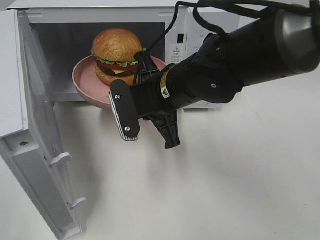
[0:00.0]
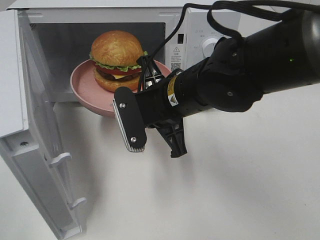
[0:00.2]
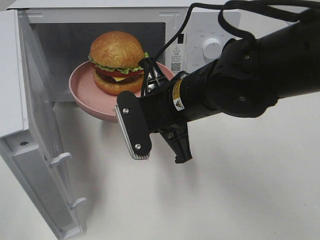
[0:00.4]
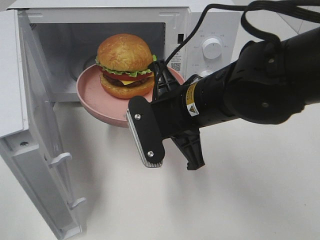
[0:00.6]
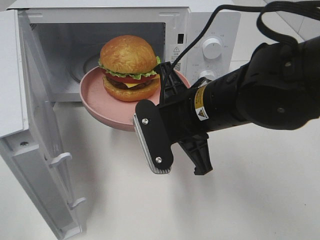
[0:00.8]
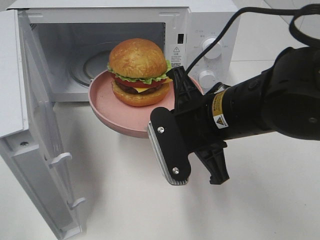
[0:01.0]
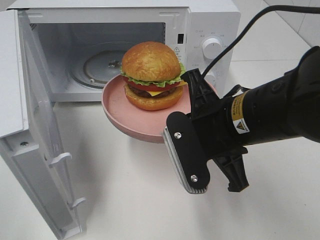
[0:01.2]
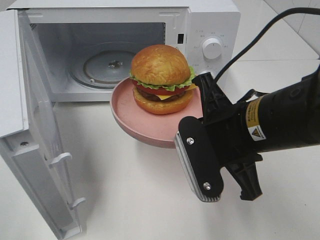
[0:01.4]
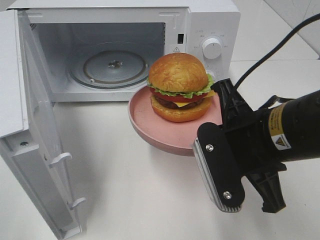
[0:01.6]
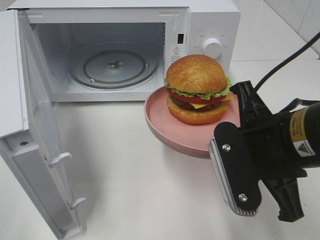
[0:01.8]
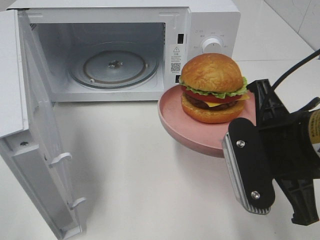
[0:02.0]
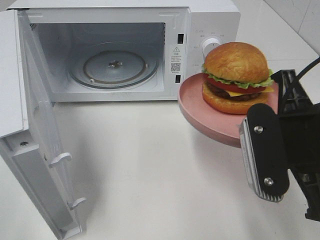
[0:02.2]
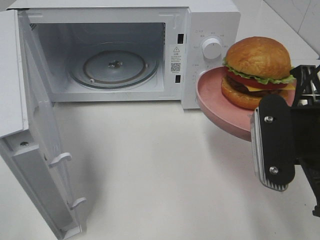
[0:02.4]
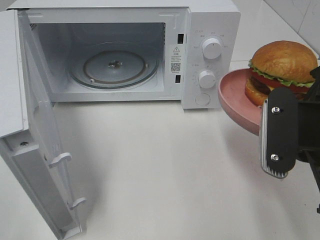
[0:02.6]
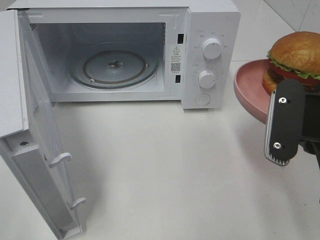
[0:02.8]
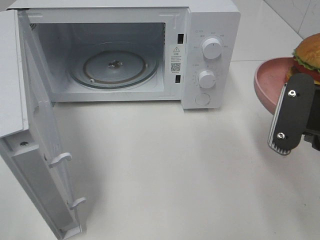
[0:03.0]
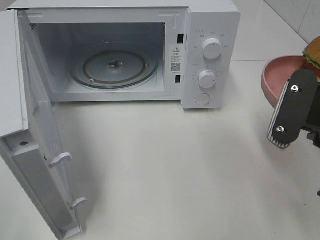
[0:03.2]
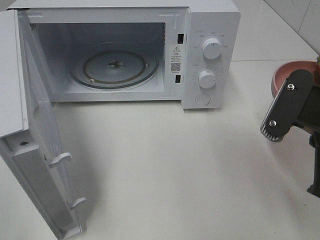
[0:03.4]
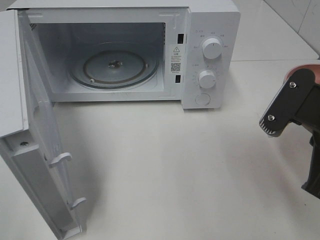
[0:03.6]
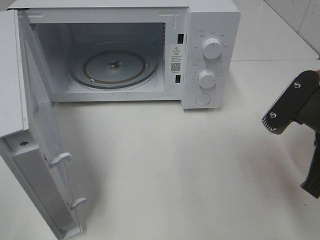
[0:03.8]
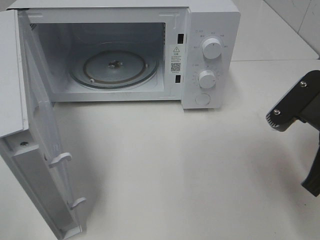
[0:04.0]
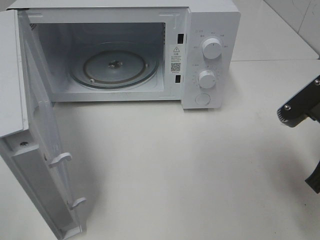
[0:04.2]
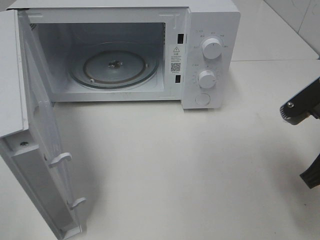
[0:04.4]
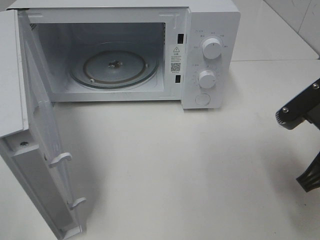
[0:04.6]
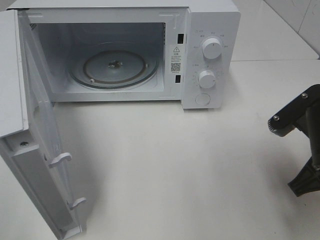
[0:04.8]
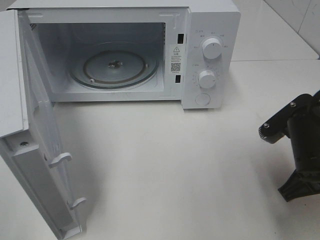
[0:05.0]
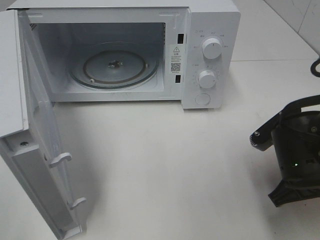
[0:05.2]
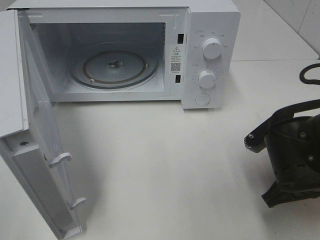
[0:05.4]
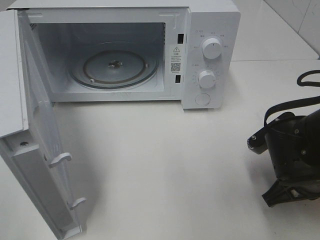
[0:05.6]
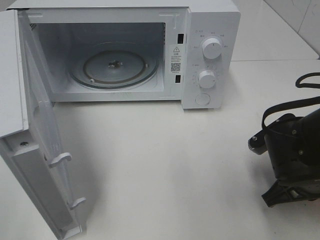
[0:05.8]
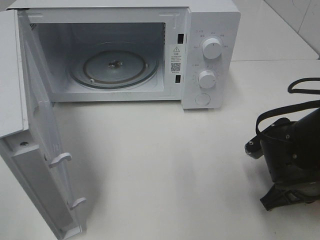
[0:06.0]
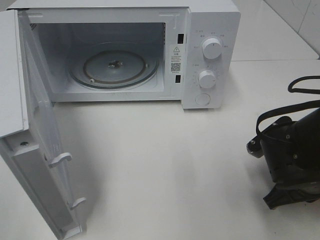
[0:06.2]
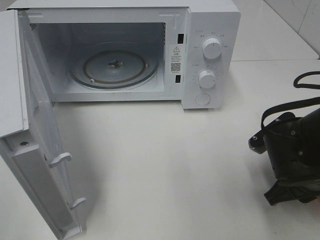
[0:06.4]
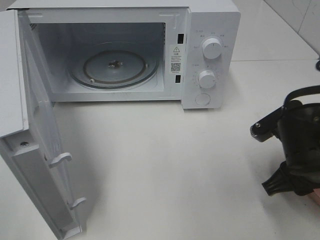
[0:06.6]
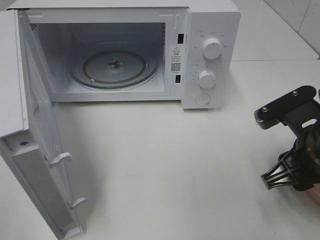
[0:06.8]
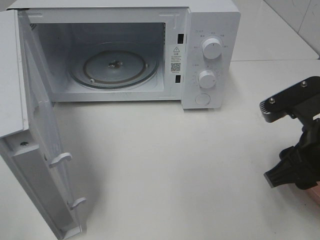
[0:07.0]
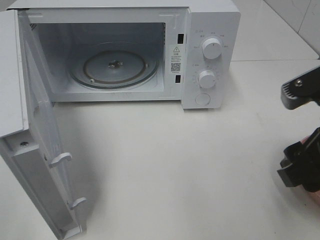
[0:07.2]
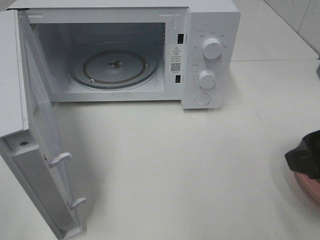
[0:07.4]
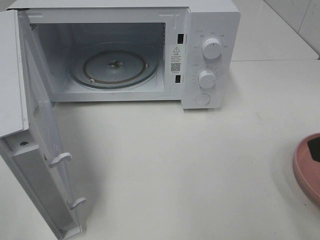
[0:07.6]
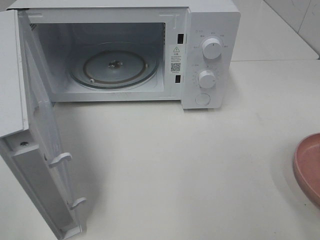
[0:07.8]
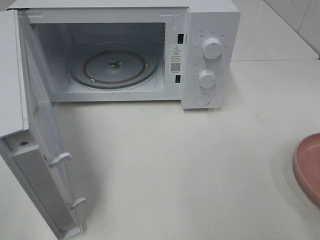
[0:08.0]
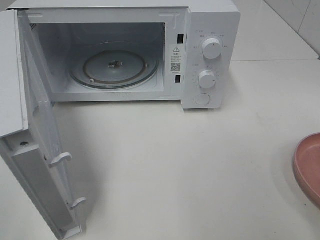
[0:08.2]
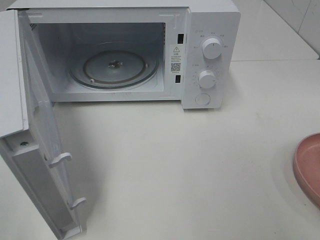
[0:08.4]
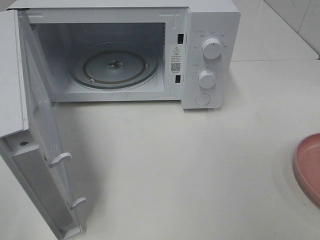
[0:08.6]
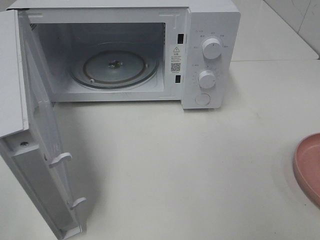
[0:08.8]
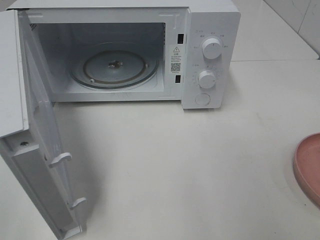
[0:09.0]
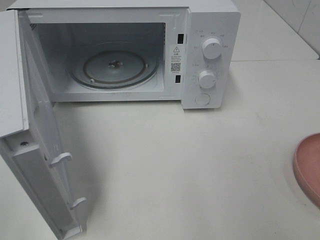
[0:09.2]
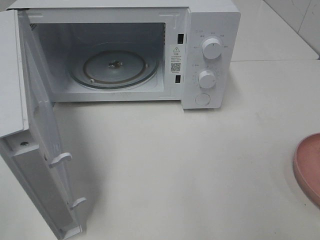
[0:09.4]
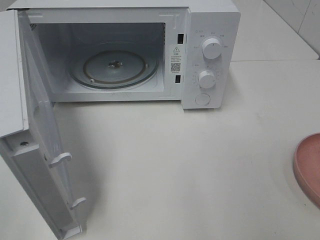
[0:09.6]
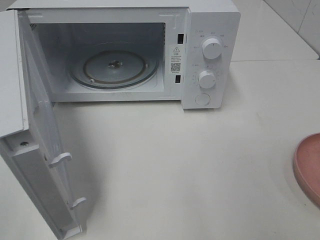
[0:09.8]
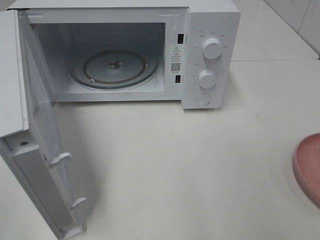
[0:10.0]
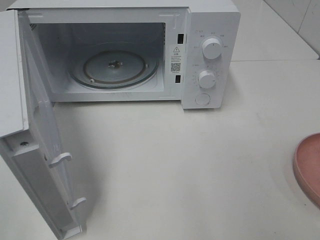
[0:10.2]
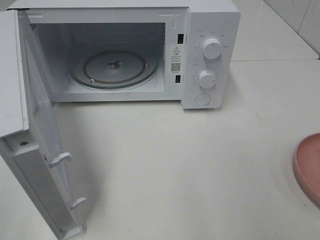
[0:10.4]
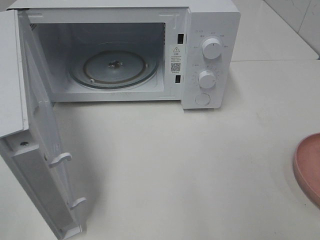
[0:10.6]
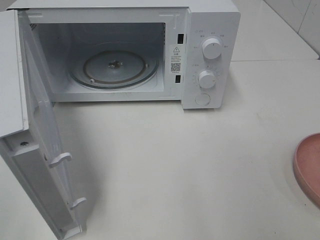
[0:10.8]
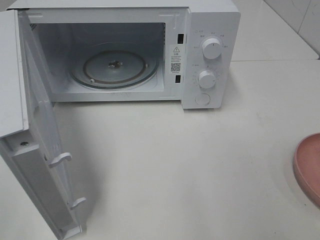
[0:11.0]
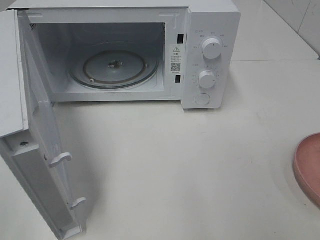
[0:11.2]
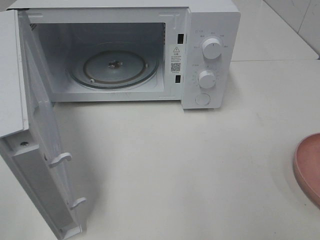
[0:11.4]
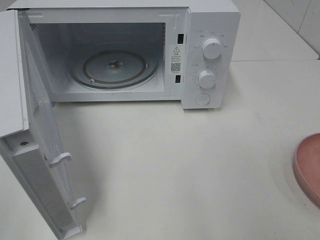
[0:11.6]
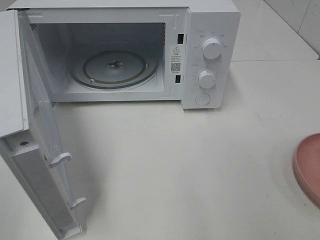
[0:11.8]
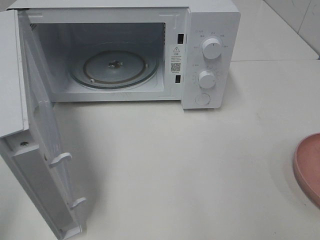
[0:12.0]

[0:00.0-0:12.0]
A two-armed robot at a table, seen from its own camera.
Task of the whole recording: Heat the burger.
Step, 0:00.0 to 0:06.6: Right hand: place the plate on the table.
0:00.0 to 0:01.6: The right gripper goes approximately 15 cm backward and to the right.
0:01.6 to 0:03.0: The right gripper heads to the right, covering roughly 10 cm.
0:04.4 to 0:06.0: The right gripper travels downward by roughly 10 cm.
0:06.0 to 0:07.6: The right gripper heads upward and backward, covering roughly 25 cm, and opens up.

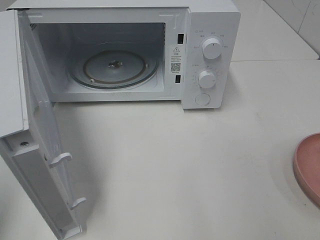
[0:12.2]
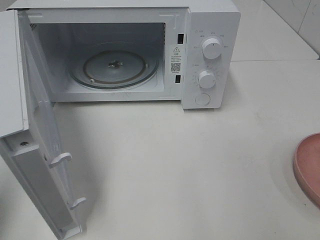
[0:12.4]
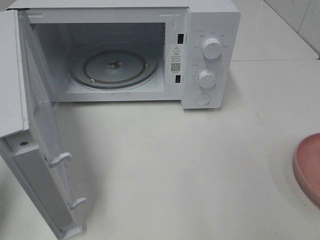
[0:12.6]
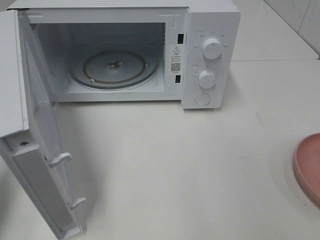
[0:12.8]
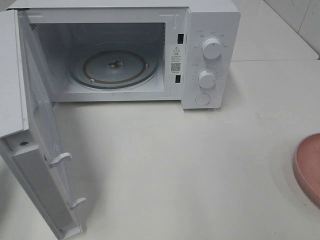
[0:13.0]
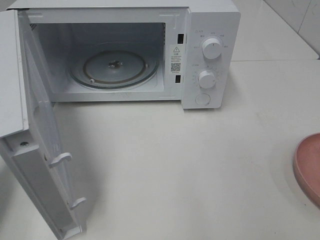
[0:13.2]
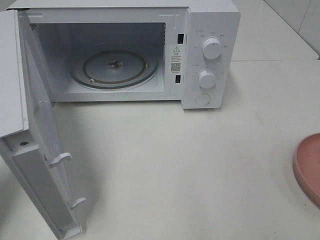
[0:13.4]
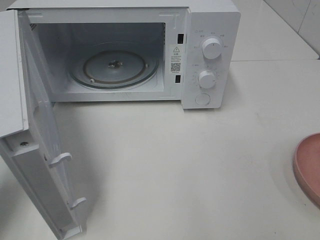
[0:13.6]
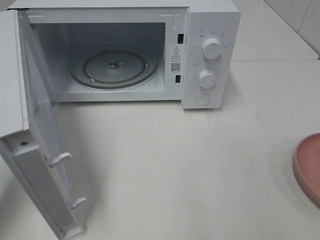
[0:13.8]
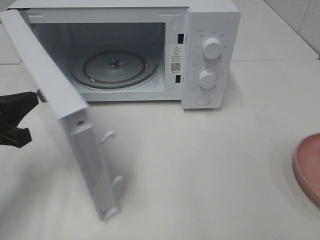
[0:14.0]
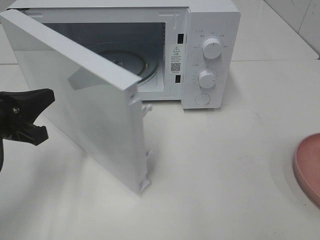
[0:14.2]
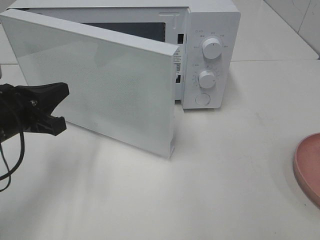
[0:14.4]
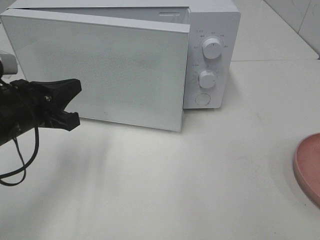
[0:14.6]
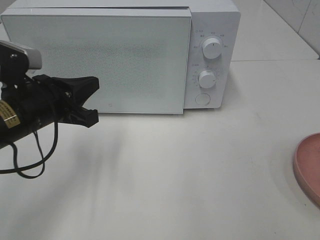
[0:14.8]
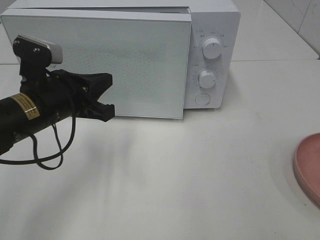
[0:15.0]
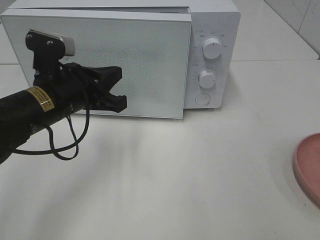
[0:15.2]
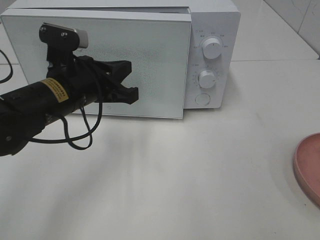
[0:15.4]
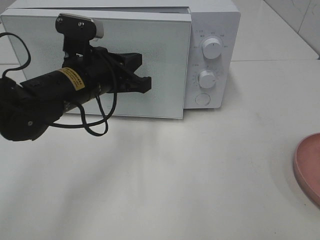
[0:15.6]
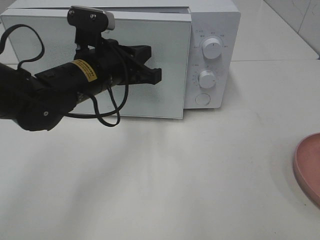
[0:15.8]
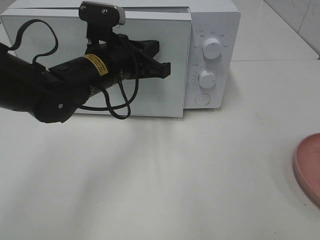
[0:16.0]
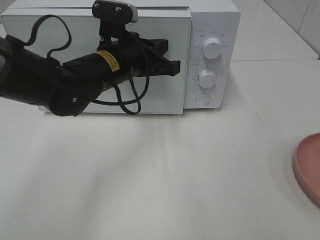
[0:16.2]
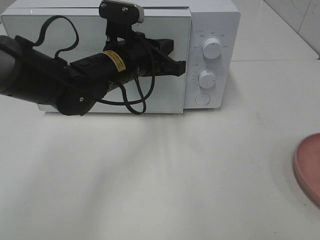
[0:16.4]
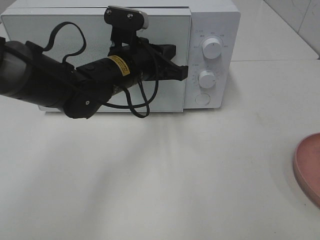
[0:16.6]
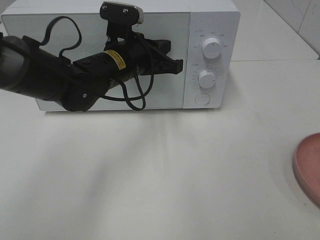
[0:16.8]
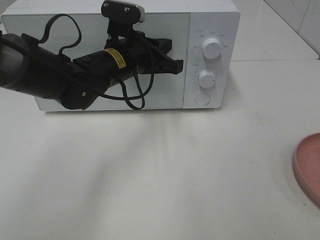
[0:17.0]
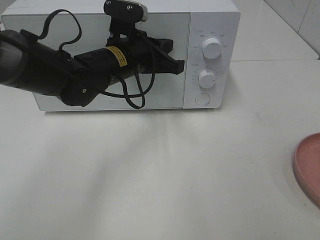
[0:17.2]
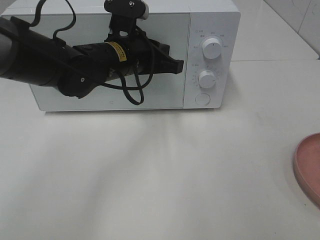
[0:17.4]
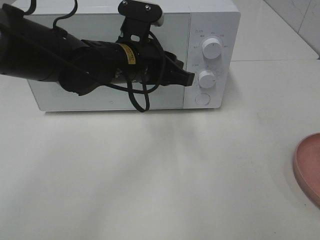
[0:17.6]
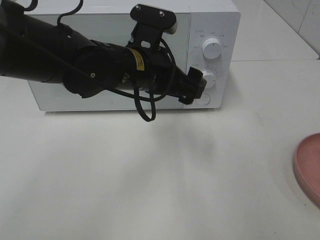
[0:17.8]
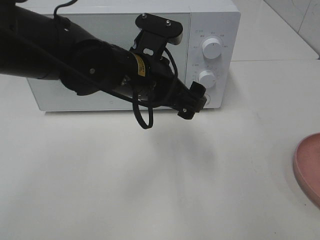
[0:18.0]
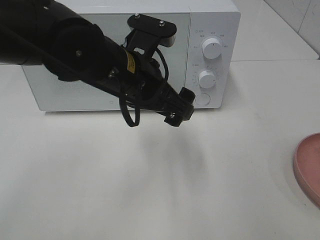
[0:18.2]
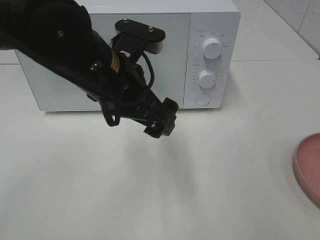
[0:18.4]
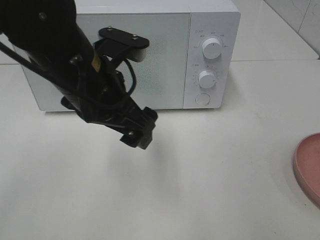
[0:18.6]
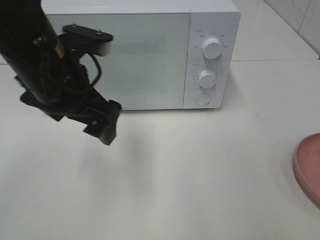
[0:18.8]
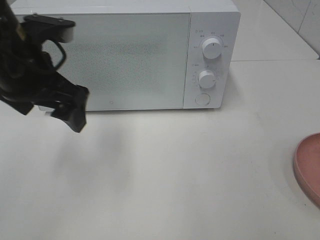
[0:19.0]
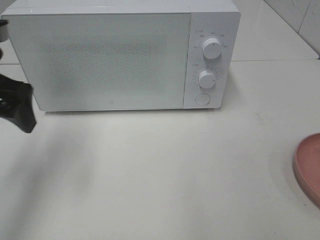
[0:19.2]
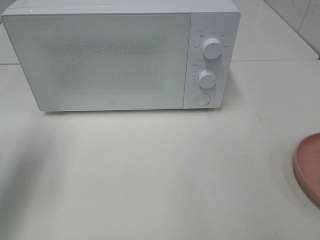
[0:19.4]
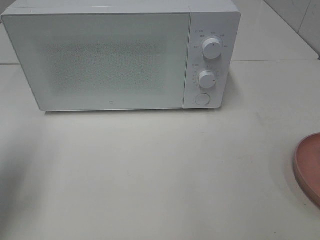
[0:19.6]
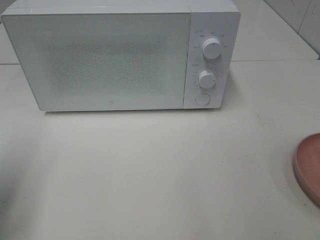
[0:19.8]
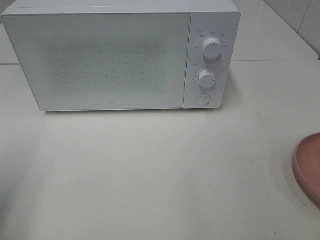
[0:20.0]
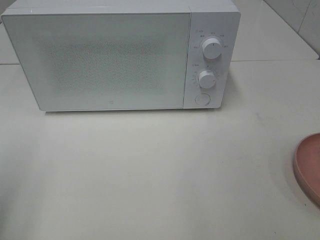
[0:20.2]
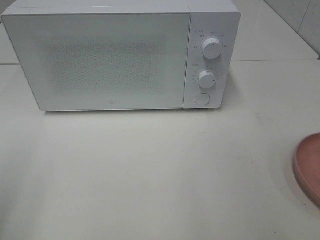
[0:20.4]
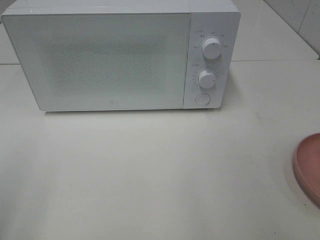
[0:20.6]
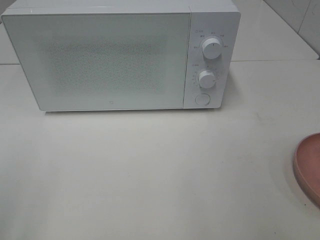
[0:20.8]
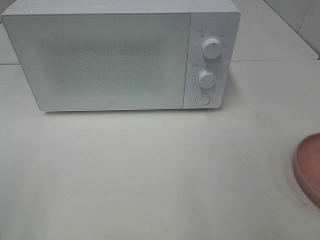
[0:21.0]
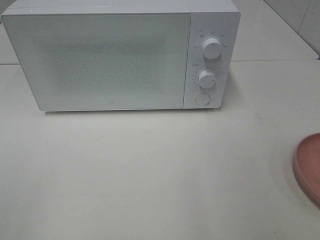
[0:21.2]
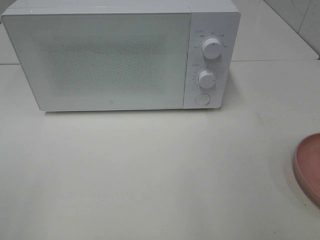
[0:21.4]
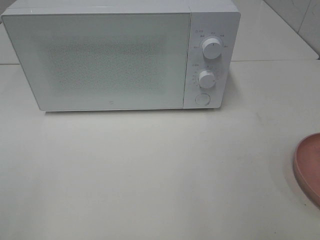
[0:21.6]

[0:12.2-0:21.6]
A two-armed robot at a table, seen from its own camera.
Task of the whole recording: Heat the burger.
Step, 0:12.2 to 0:17.4: Left hand: close the microwave door.
0:12.2 to 0:13.8: The left gripper shifts roughly 20 cm downward and forward.
0:13.8 to 0:15.4: The left gripper heads to the right and forward, covering about 20 cm.
0:15.4 to 0:17.0: The left gripper is displaced forward and to the right by roughly 10 cm.
0:17.0 to 0:18.4: The left gripper travels backward and upward by about 10 cm, and opens its fingers.
0:18.4 to 0:20.0: The left gripper goes roughly 30 cm to the left and backward.
0:20.0 to 0:21.6: The left gripper moves backward, roughly 15 cm.

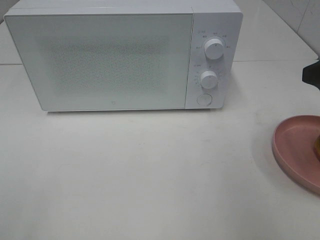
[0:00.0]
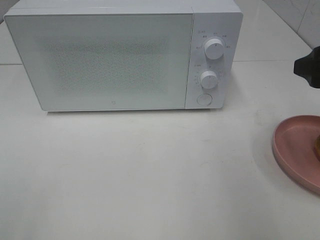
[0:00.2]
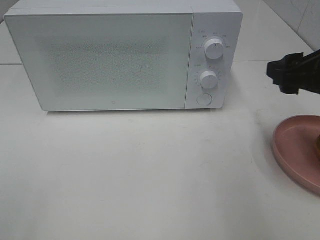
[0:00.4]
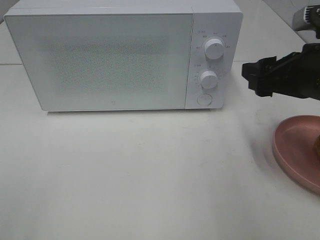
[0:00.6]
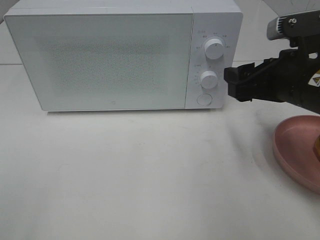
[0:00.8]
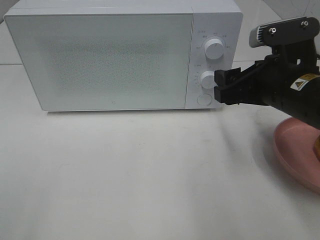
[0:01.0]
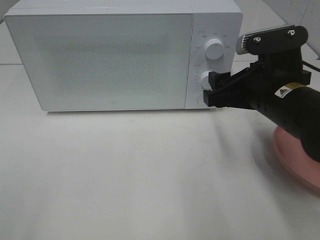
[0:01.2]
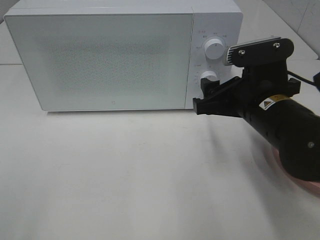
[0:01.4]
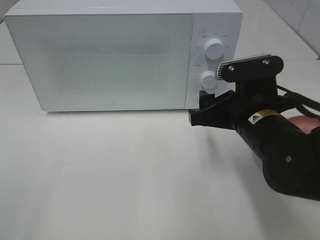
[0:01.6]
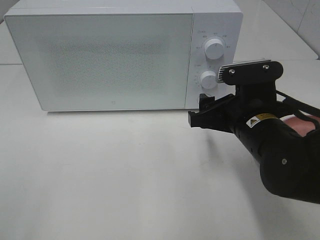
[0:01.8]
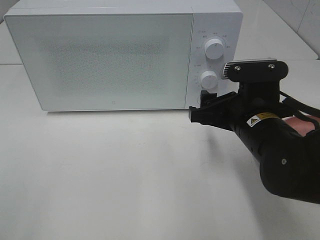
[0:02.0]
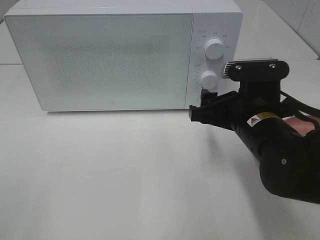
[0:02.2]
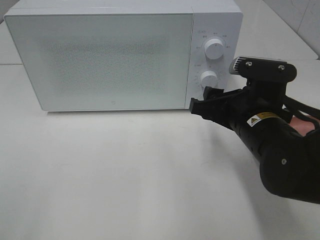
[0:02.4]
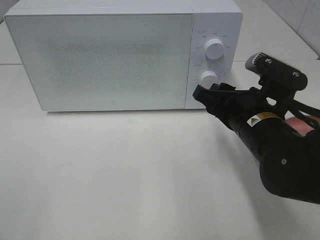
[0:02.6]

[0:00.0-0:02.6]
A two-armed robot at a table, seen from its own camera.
Task of the whole recording: Heat the burger.
0:00.0 to 0:01.2: The right gripper is displaced to the left and downward by approximately 15 cm.
